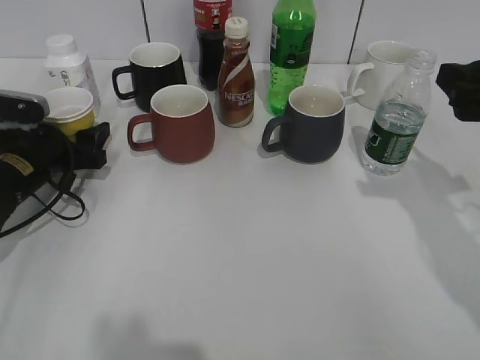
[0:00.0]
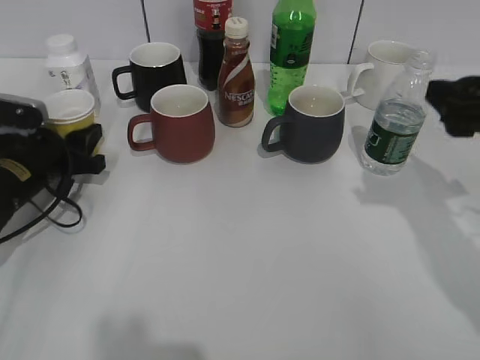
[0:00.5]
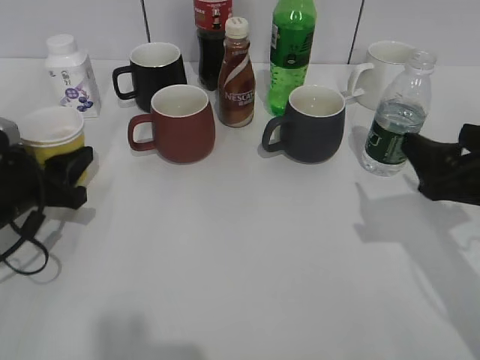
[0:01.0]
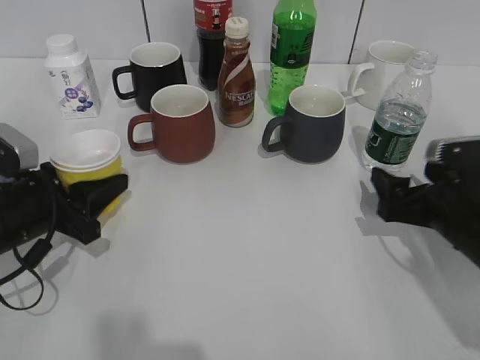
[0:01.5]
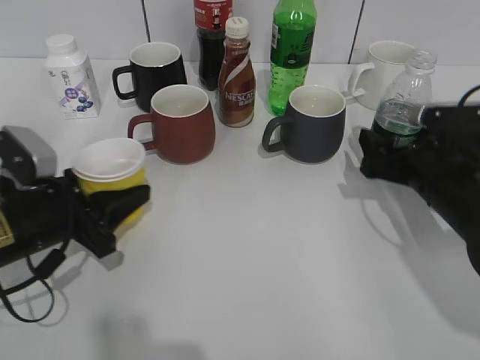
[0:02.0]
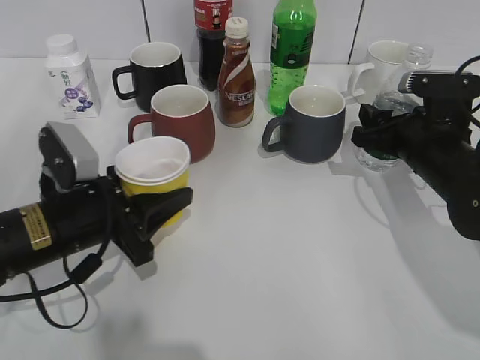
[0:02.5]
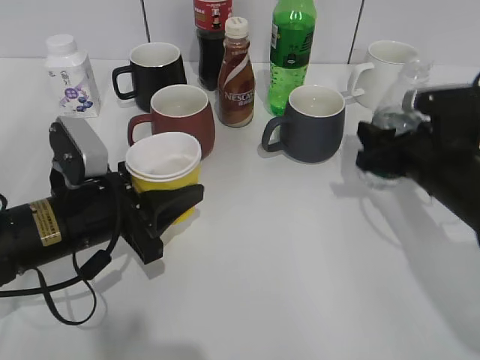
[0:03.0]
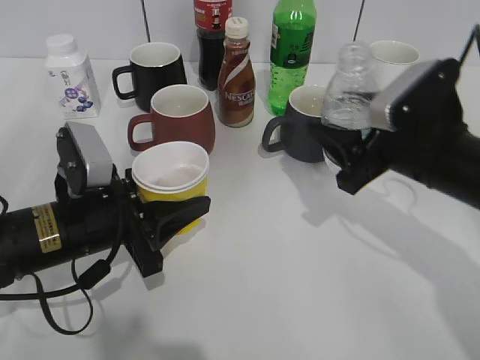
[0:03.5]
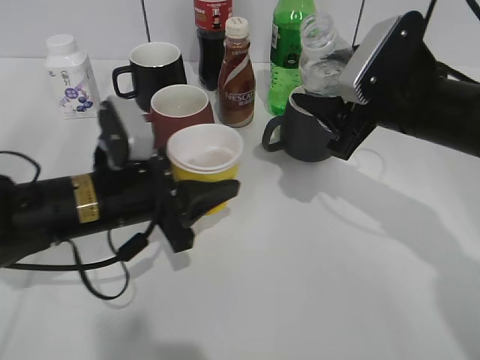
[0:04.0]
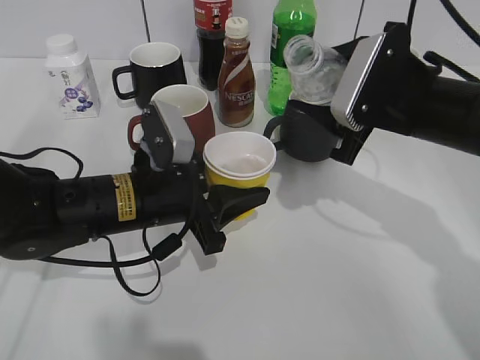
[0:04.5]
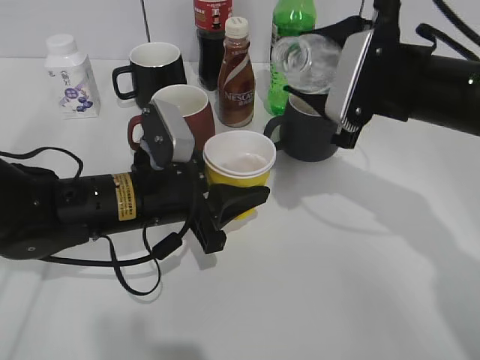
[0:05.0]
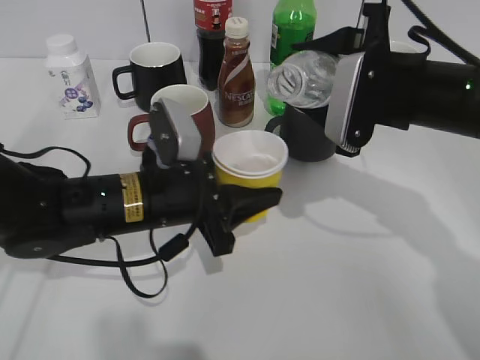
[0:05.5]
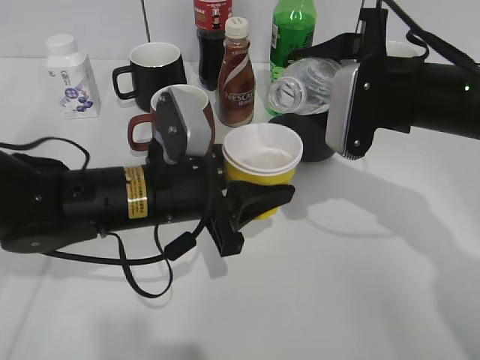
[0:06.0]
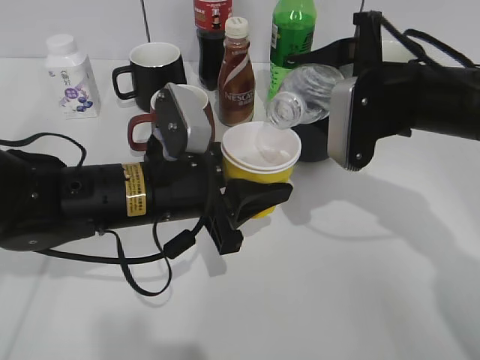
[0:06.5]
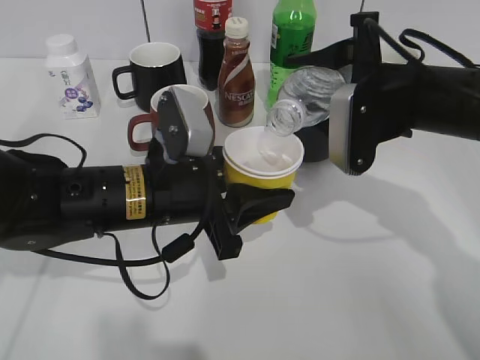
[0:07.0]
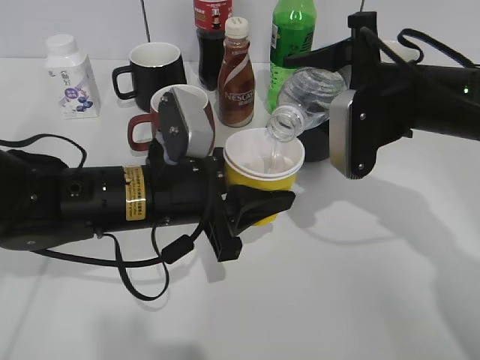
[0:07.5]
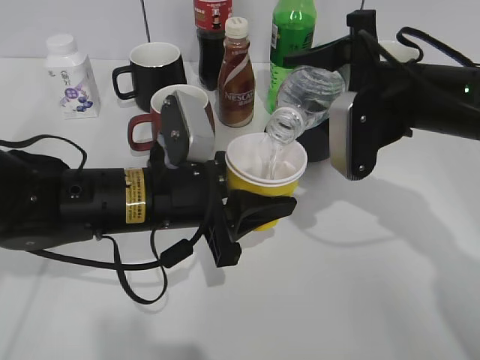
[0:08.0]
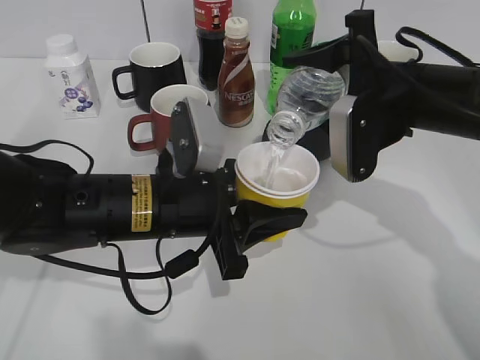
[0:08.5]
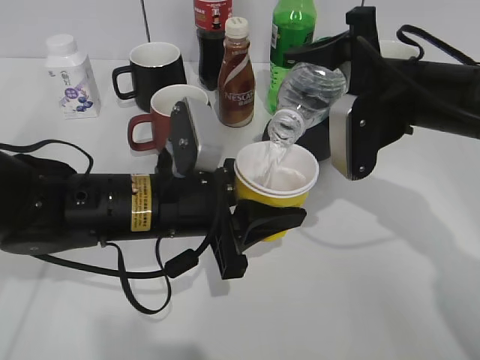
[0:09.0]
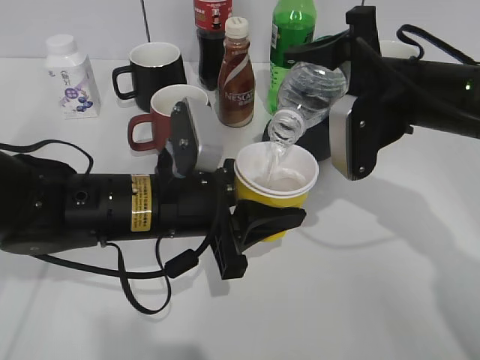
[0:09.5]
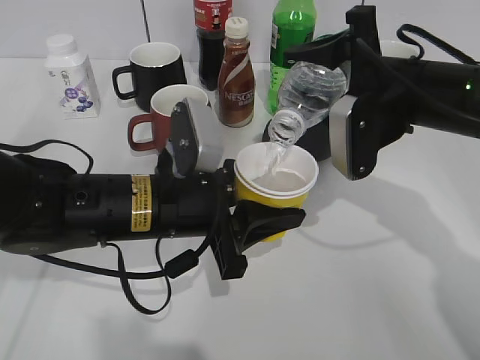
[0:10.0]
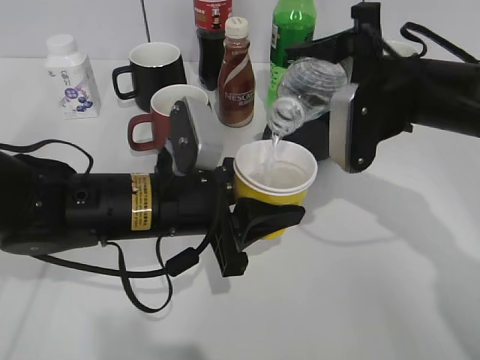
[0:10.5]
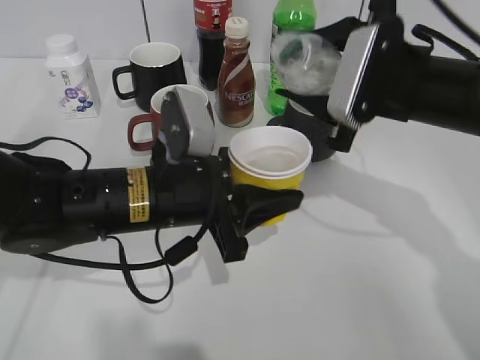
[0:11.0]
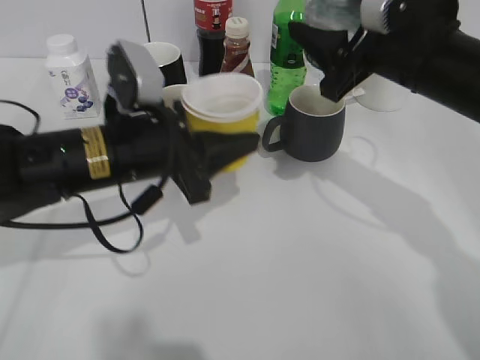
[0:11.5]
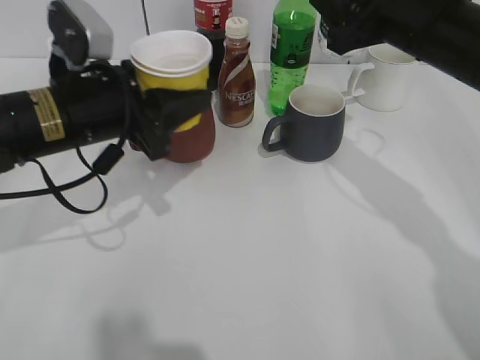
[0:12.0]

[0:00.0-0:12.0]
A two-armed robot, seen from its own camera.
Step, 0:00.5 to 0:02.5: Grasp the bottle with water with right gripper.
Step, 0:03.0 to 0:11.0: Pour the water from bottle to cup with right gripper.
0:00.0 to 0:02.0: The right gripper travels downward by roughly 15 cm, and opens its fingers. The left gripper heads backward, covering approximately 10 cm, and closes.
0:02.0 to 0:04.0: The right gripper heads upward and to the left, covering roughly 10 cm, and closes, while the left gripper goes roughly 10 cm to the right.
0:04.0 to 0:06.0: The left gripper shifts approximately 5 cm to the right.
0:06.0 to 0:08.0: The grippers move only a little.
0:08.0 to 0:10.0: The grippers stay close to where they were, moving slightly.
0:10.0 to 0:12.0: The right gripper ends up roughly 5 cm from where it was. The left gripper travels to the left, upward and forward by about 10 cm.

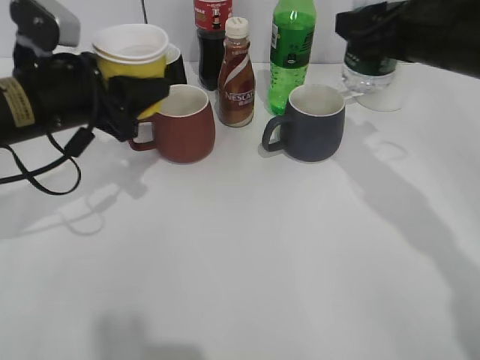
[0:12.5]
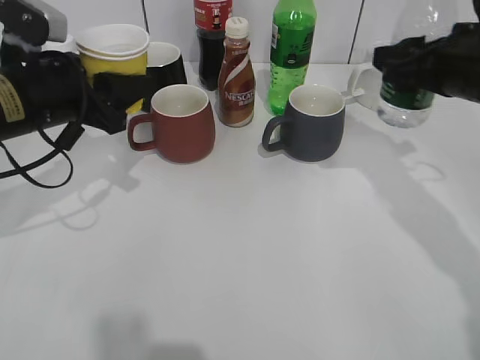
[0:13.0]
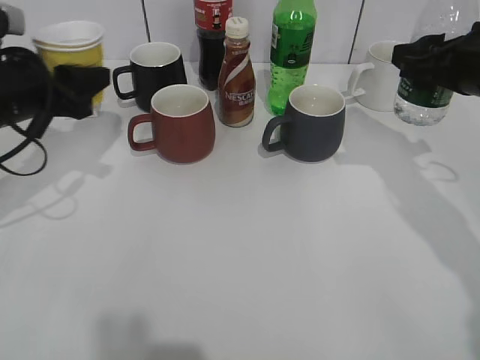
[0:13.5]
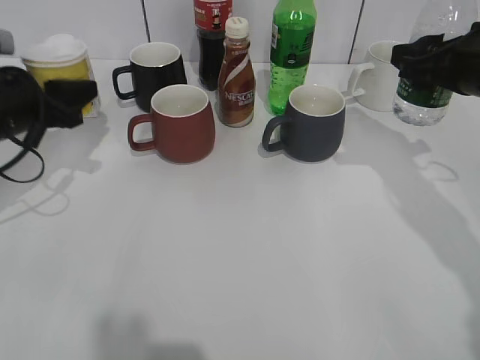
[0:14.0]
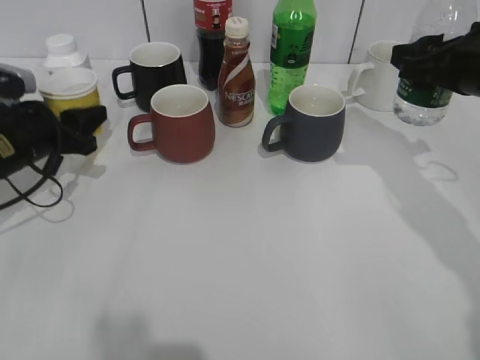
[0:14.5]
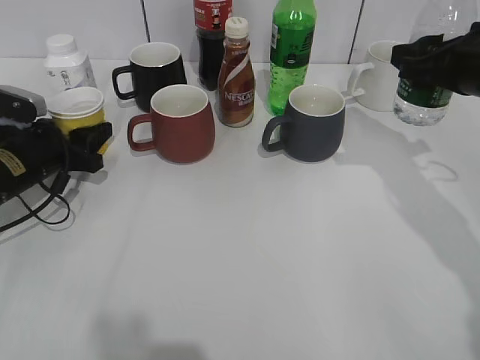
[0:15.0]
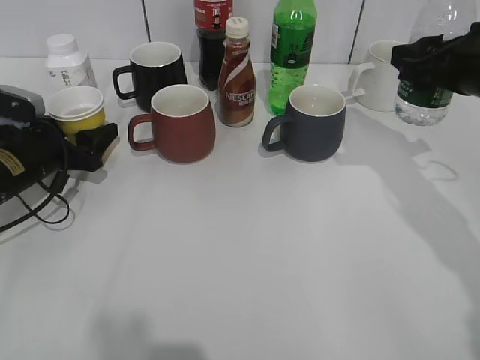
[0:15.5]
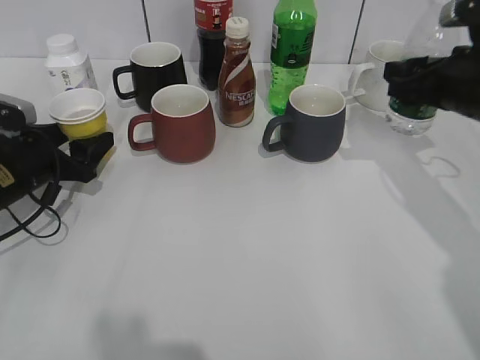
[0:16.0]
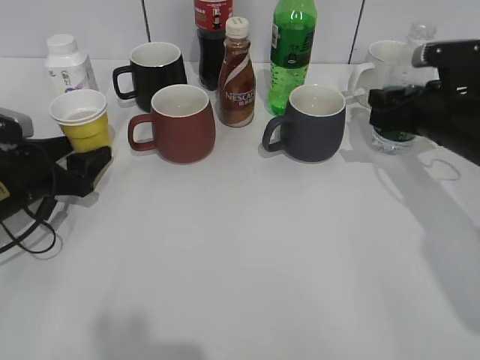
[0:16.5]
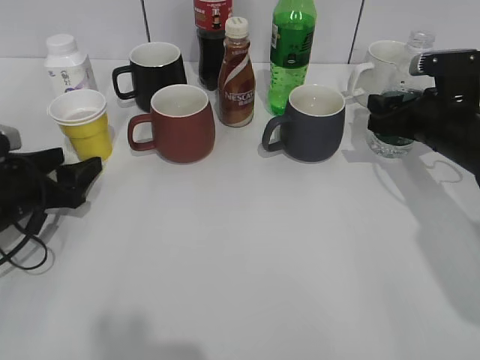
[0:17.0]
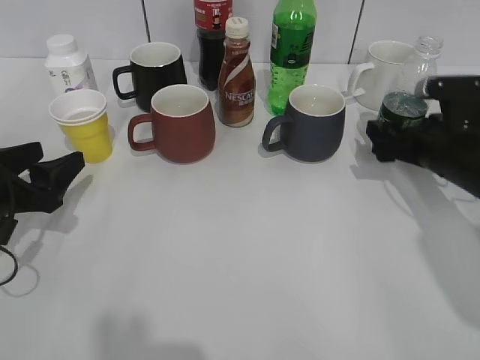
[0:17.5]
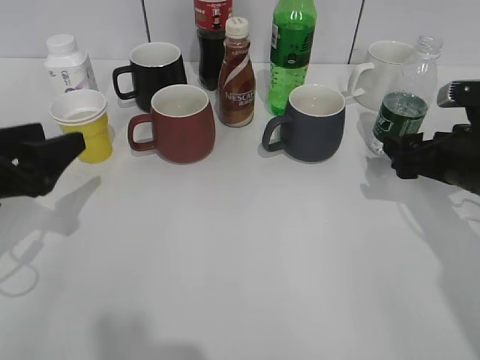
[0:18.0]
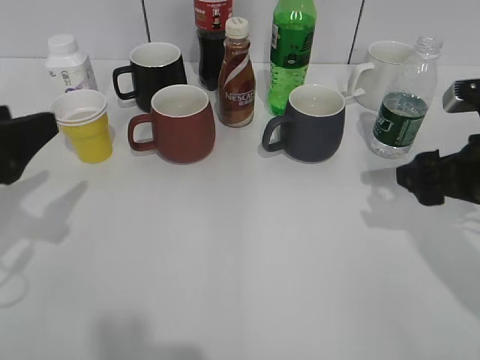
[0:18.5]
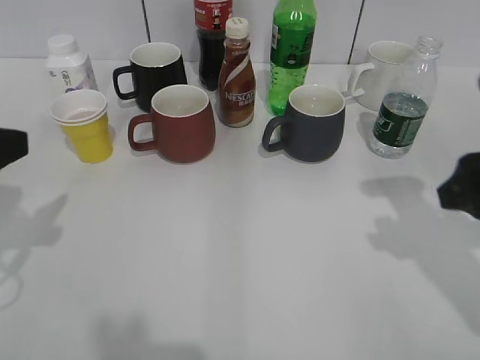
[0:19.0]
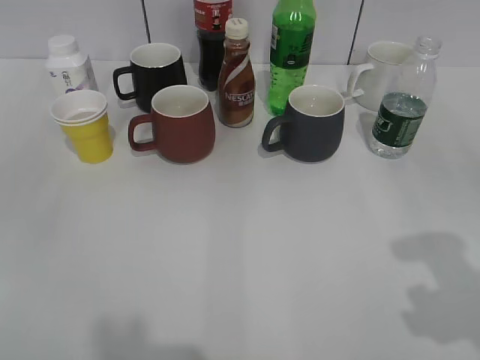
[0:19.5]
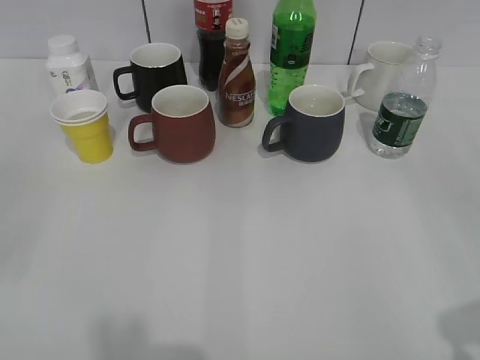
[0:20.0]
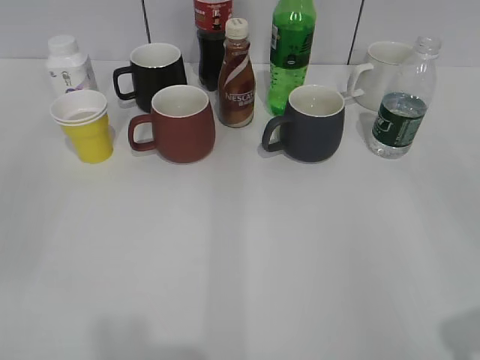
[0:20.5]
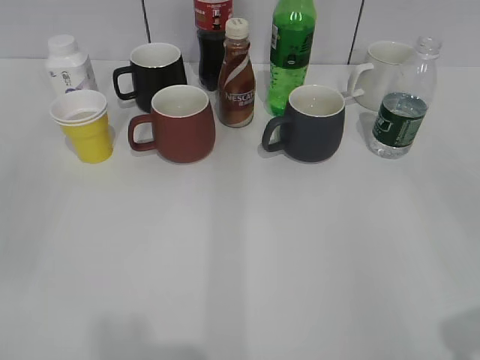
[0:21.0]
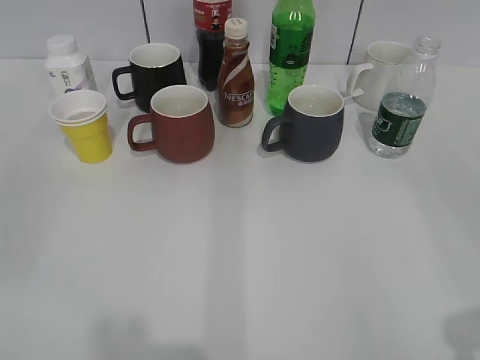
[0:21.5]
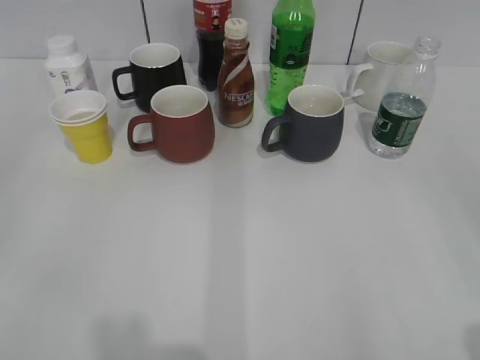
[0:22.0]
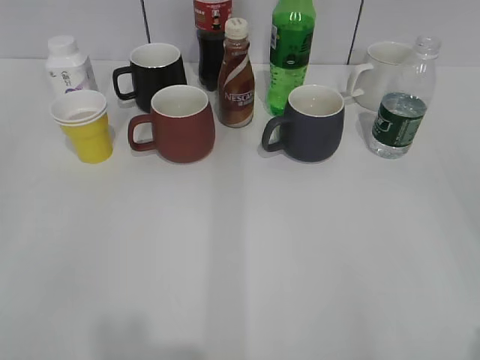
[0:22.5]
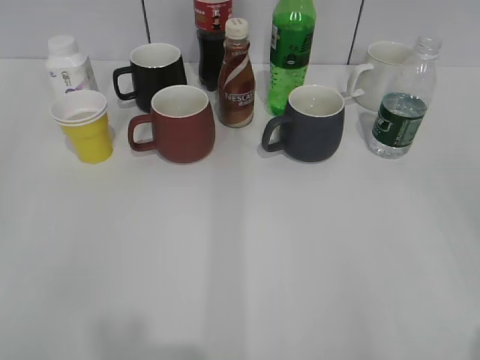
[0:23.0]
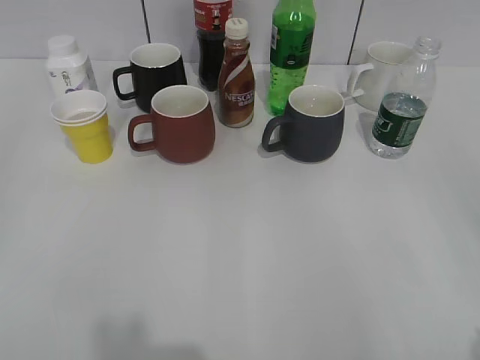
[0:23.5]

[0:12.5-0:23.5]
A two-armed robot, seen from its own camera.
Step, 0:12.5 to 0:15.5: Place the yellow paper cup on the table with left gripper.
Step, 0:16.0 to 0:17.5: Place the water bottle on the table with right gripper.
0:12.5 to 0:14.5: The right gripper goes about 5 cm to the right. The left gripper travels downward and to the left by approximately 10 cm.
0:14.5 to 0:16.0: The left gripper opens its fingers.
0:16.0 to 0:18.0: The right gripper goes some 5 cm downward, and opens, while the left gripper heads backward and upward, covering approximately 10 cm.
0:18.0 to 0:20.0: The grippers both shift backward and upward by roughly 25 cm.

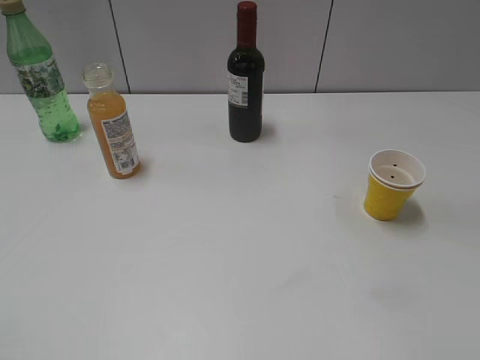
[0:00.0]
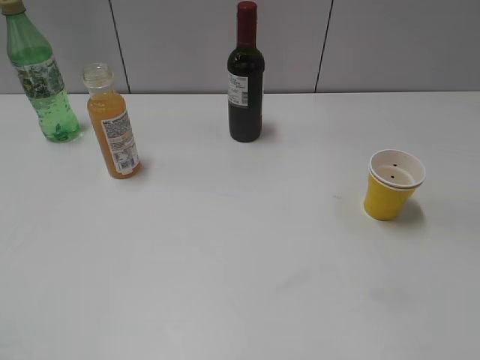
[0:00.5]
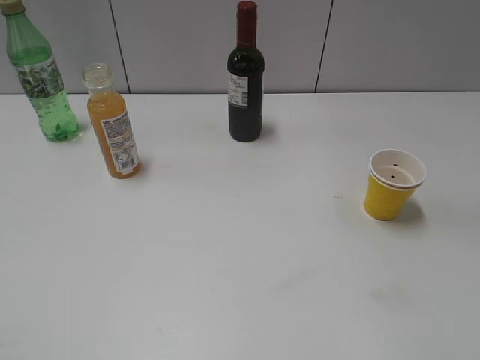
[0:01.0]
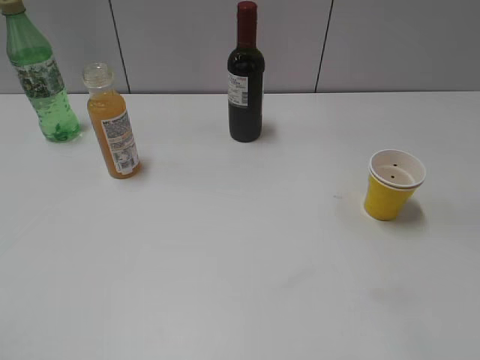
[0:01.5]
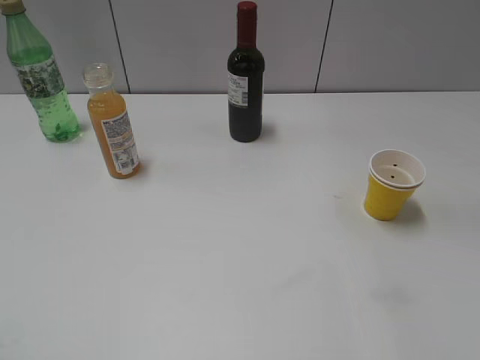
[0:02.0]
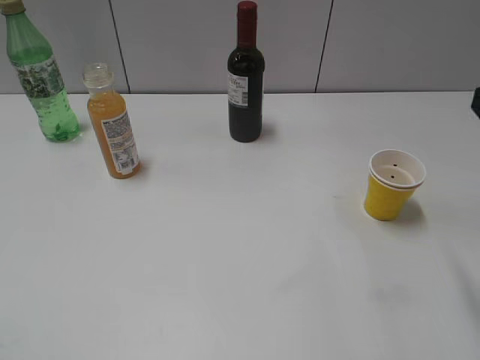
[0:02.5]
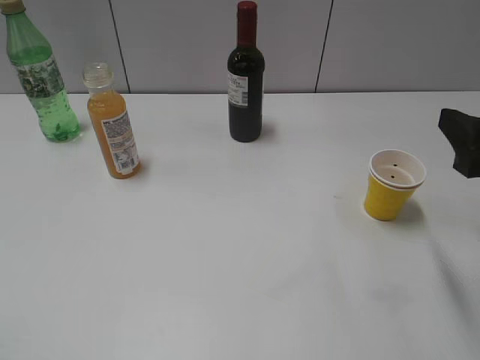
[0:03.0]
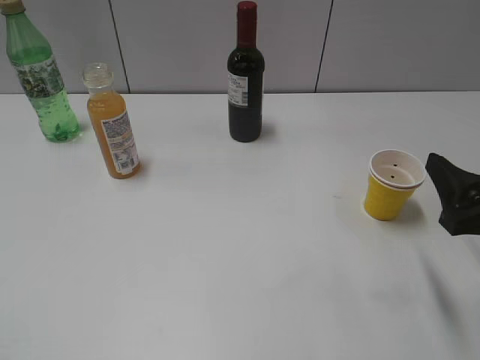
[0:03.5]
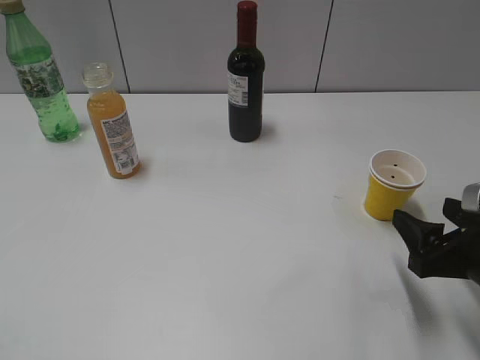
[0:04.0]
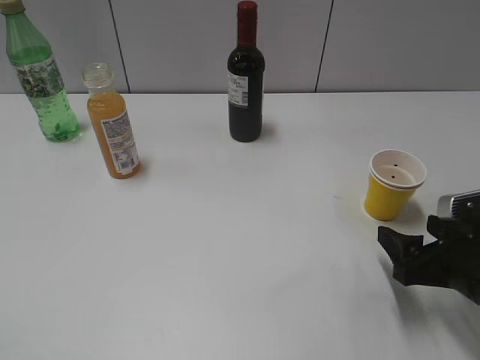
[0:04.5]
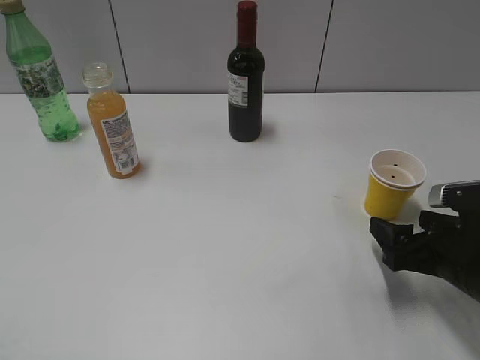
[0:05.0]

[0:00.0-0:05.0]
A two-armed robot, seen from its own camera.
0:02.5 to 0:05.0: The right gripper is displaced downward by some 20 cm.
